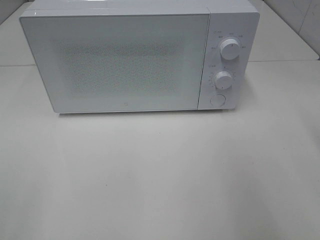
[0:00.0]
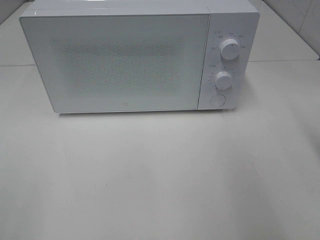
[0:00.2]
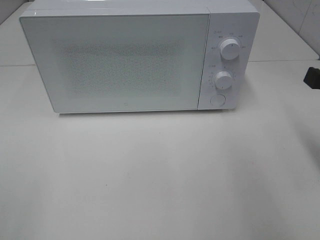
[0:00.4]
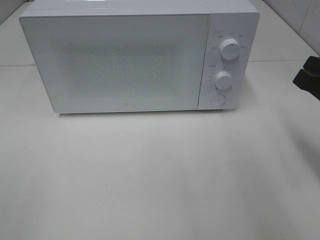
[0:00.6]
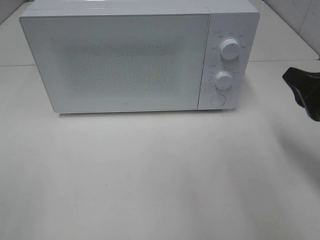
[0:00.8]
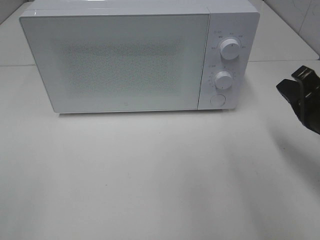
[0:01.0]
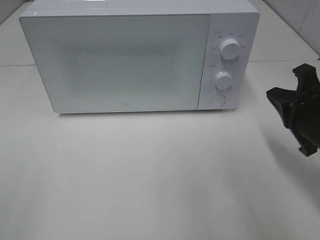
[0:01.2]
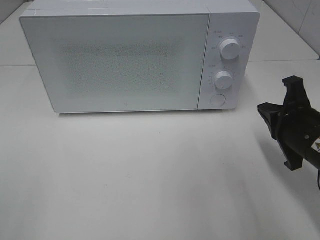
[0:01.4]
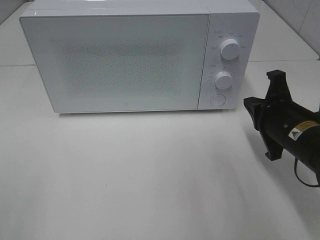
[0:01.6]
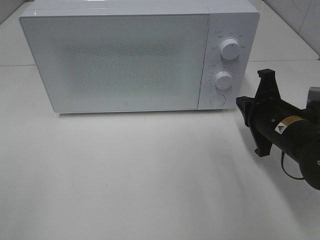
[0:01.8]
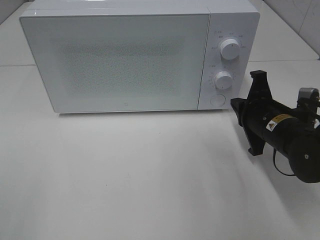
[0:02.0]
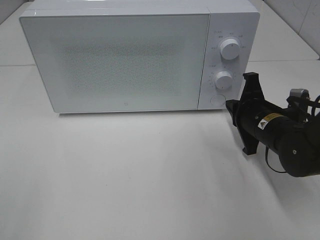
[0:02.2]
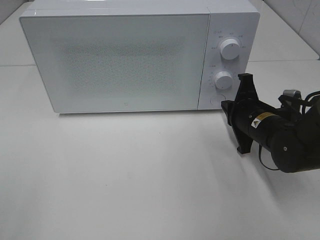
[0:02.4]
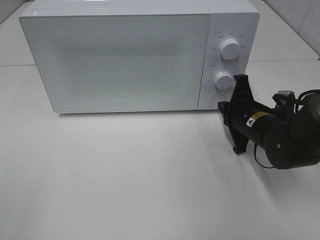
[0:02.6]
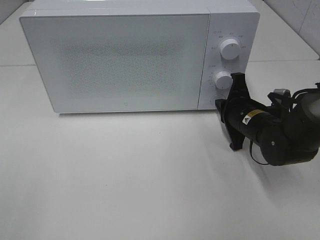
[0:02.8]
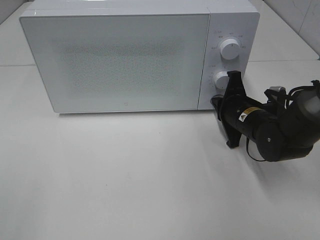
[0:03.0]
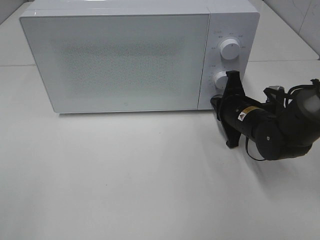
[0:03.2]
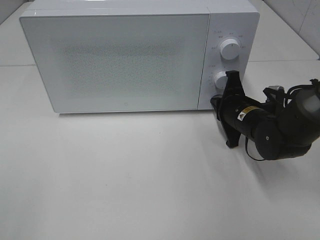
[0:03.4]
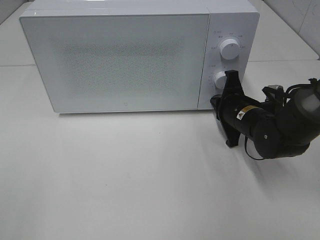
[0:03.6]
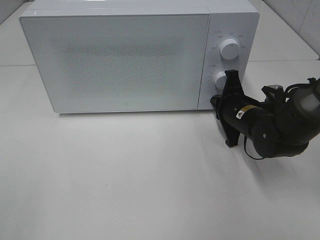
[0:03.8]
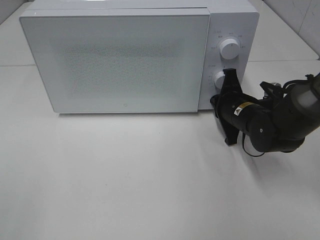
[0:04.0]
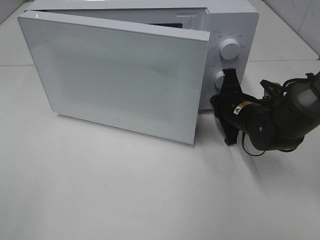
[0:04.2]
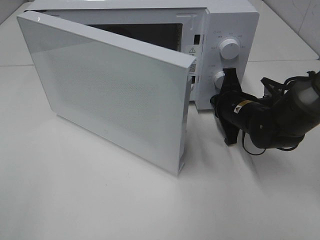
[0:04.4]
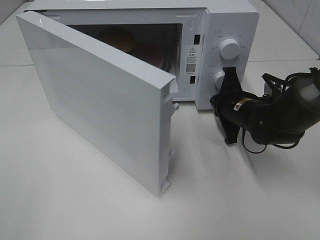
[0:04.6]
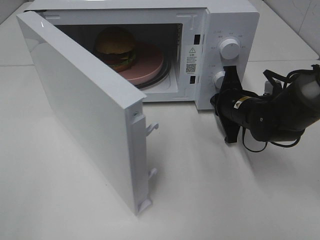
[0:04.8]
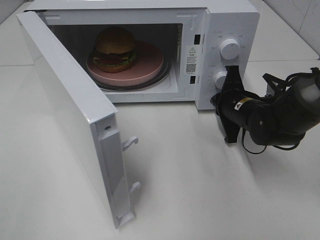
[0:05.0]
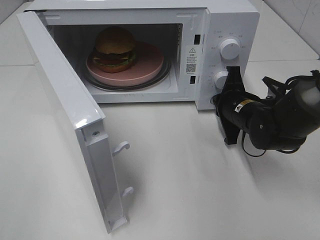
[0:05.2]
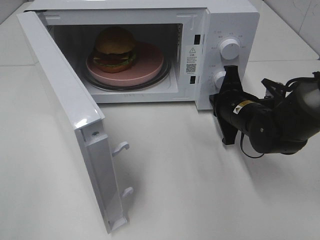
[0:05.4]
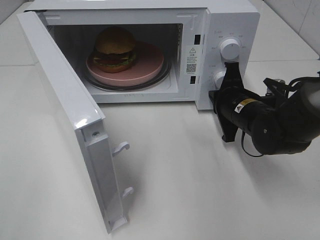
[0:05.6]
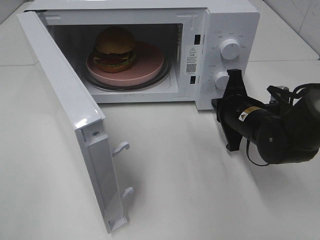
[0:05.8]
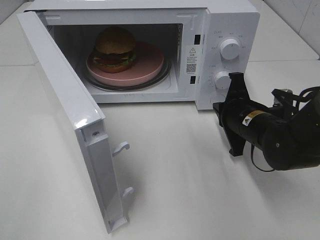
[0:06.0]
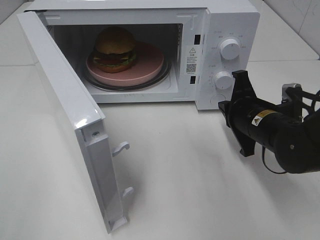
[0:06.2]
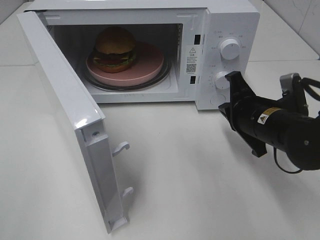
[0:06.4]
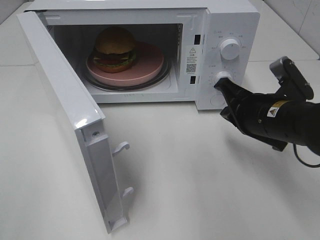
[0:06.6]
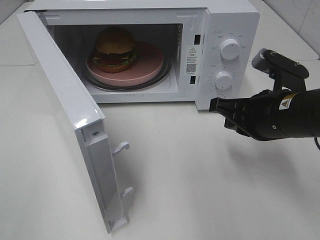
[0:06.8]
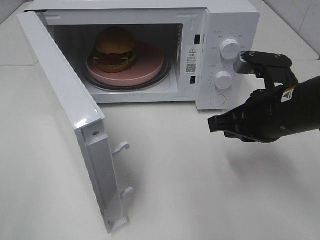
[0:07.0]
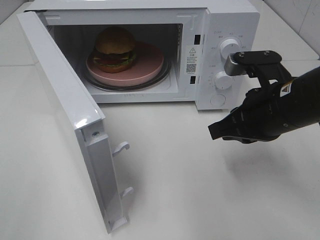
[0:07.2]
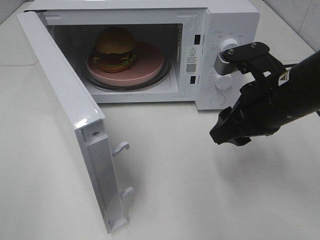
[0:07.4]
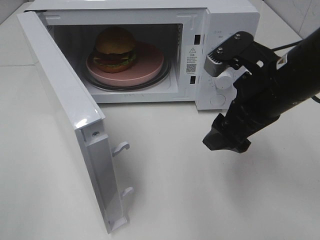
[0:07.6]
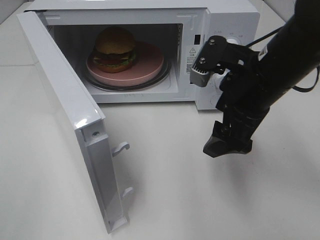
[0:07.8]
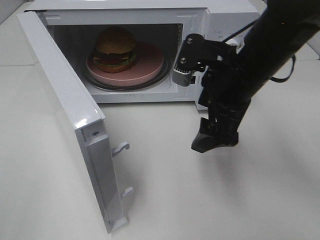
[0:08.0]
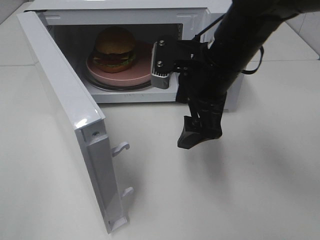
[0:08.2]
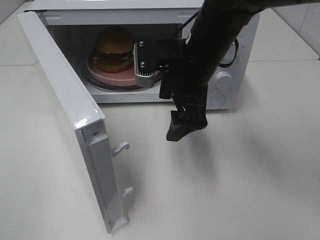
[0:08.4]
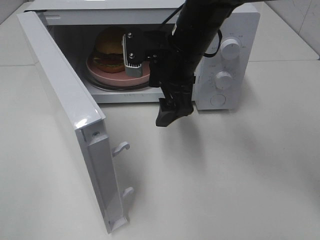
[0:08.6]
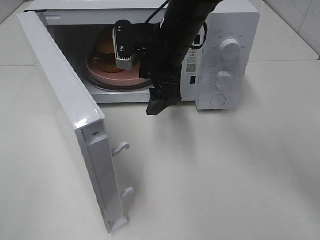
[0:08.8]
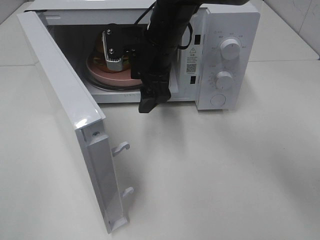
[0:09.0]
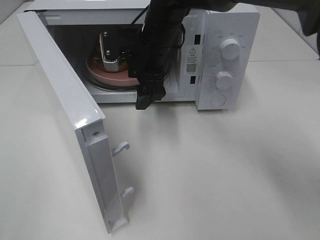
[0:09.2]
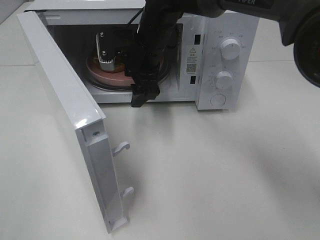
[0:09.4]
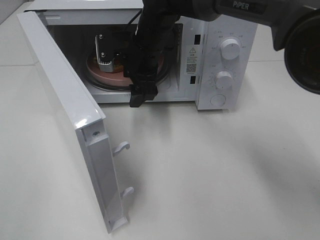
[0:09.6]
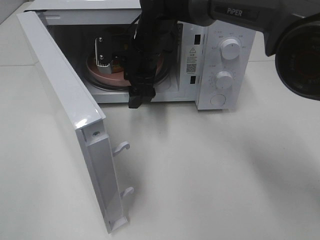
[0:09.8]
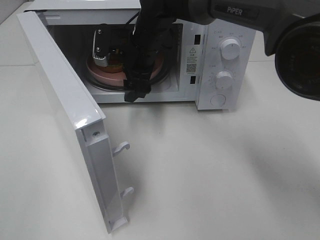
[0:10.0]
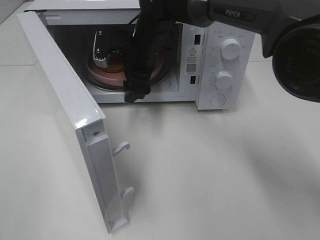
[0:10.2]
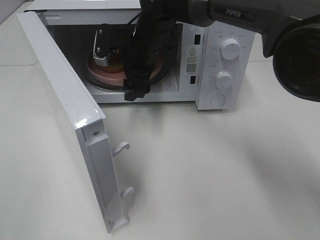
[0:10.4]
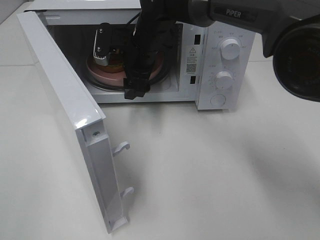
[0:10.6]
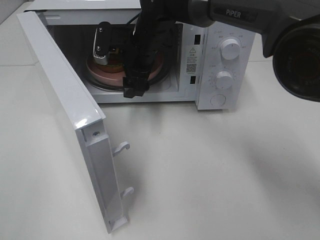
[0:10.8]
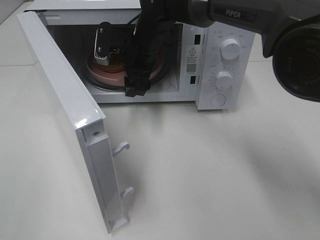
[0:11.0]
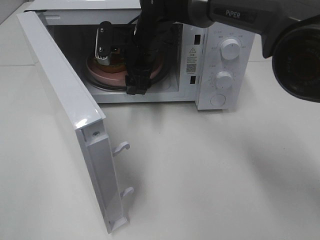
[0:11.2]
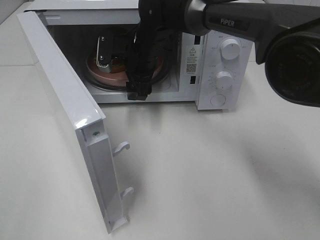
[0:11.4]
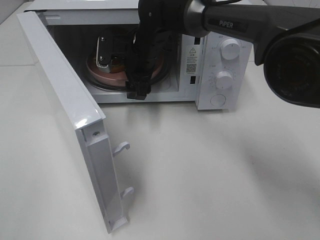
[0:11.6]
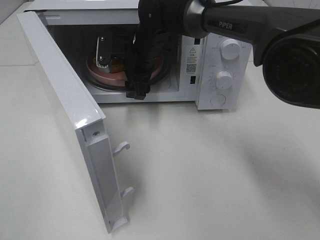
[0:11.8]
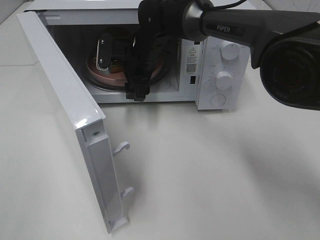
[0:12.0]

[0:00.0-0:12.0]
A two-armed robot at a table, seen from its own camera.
Task of the whole recording: Heat the burger.
Step, 0:00.0 to 0:05.4: Right hand: press the switch.
0:00.0 to 0:01.6: The right gripper heads downward, forward and to the left, covering about 20 cm.
0:01.6 to 0:03.0: The right gripper is displaced forward and downward by some 10 cm.
0:03.0 to 0:04.4: The grippers stay close to where they were, moving slightly.
0:04.4 to 0:06.0: The right gripper moves backward, some 5 cm.
0:06.0 to 0:07.6: The right gripper moves upward, roughly 15 cm, and opens its fingers.
0:07.6 to 0:09.0: The right gripper travels to the left and forward by roughly 20 cm.
0:09.0 to 0:10.4: The right gripper shifts by some 5 cm.
0:10.4 to 0:12.0: The grippers move only a little.

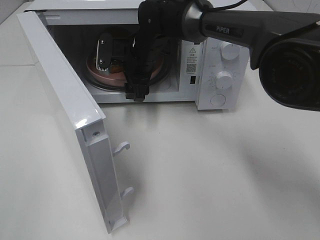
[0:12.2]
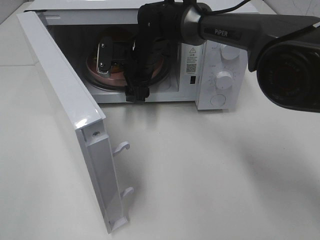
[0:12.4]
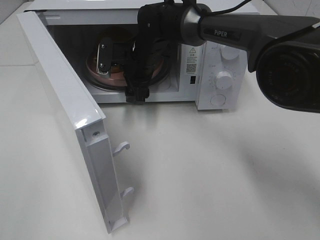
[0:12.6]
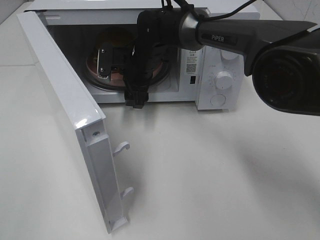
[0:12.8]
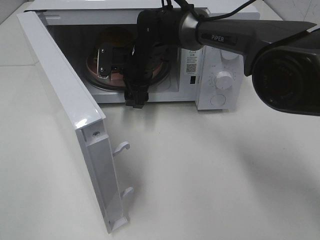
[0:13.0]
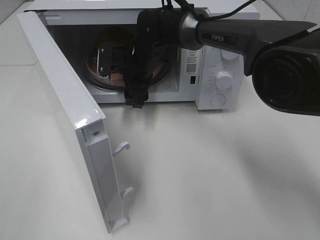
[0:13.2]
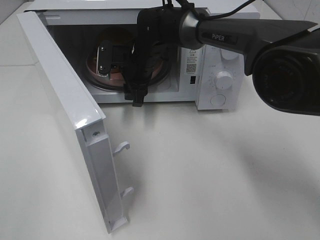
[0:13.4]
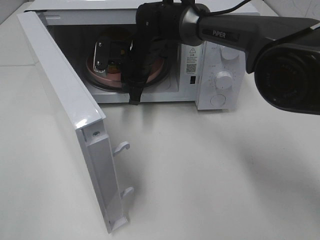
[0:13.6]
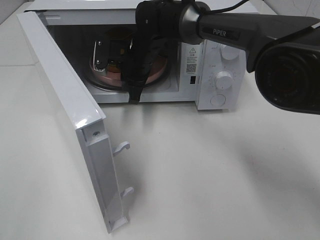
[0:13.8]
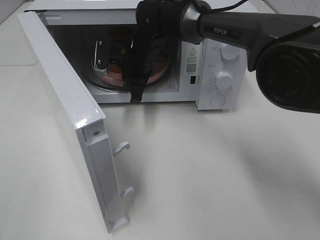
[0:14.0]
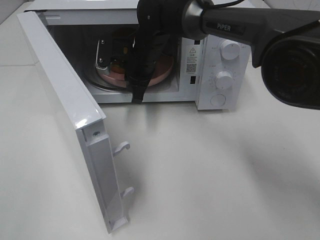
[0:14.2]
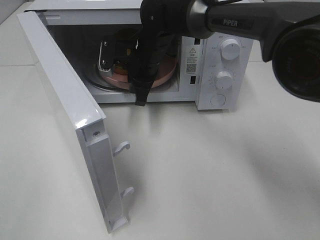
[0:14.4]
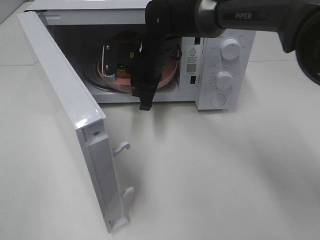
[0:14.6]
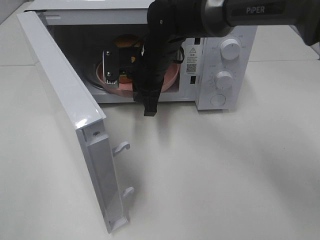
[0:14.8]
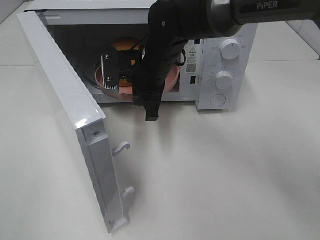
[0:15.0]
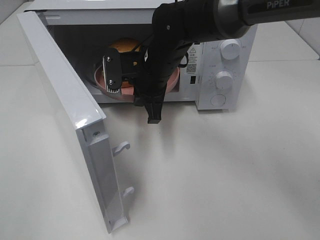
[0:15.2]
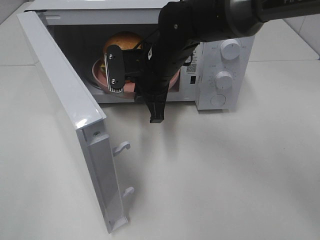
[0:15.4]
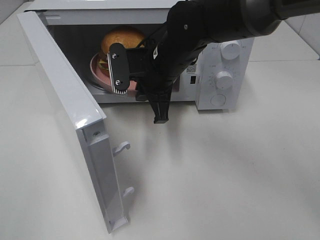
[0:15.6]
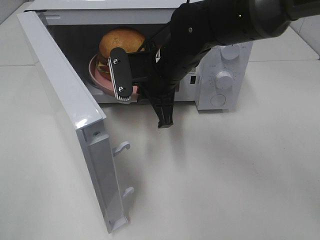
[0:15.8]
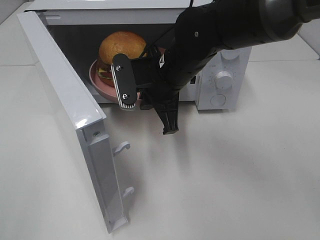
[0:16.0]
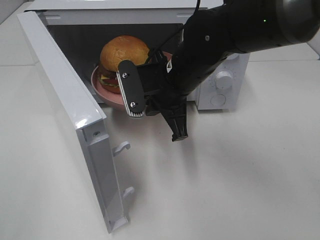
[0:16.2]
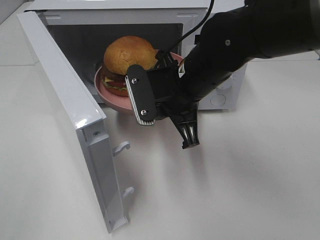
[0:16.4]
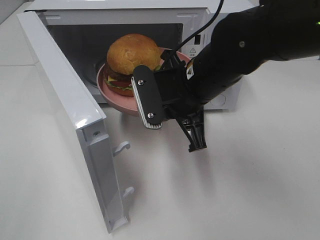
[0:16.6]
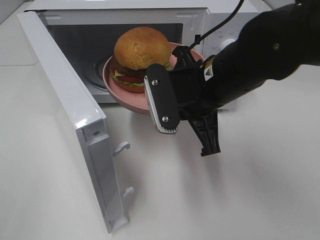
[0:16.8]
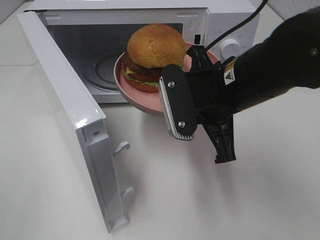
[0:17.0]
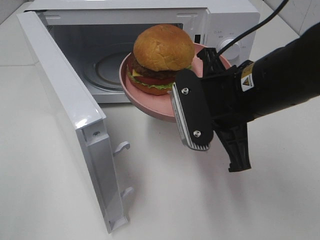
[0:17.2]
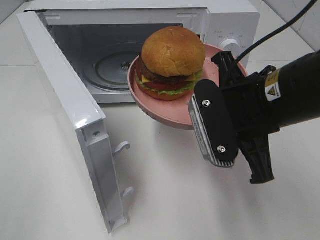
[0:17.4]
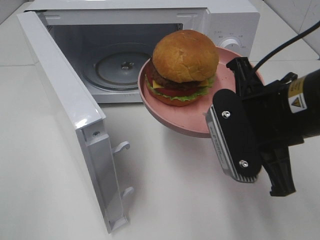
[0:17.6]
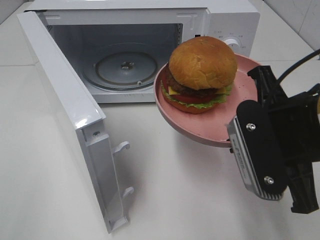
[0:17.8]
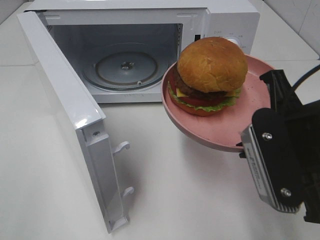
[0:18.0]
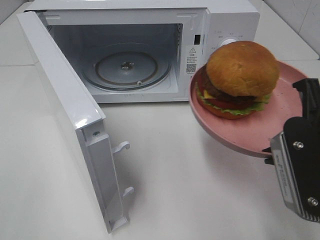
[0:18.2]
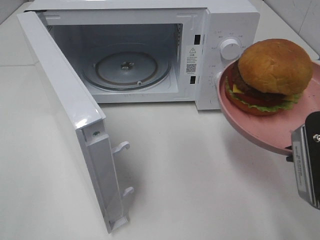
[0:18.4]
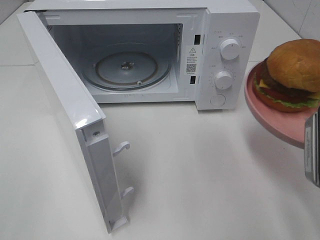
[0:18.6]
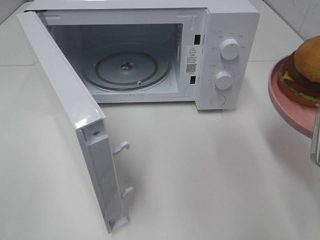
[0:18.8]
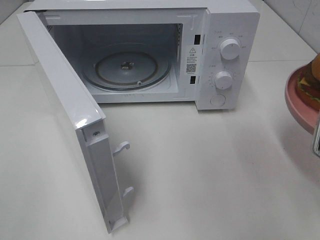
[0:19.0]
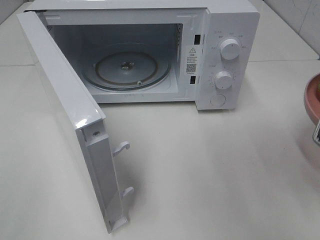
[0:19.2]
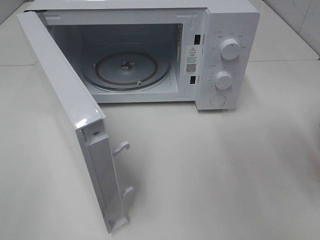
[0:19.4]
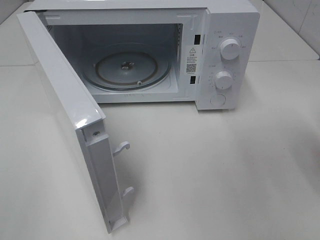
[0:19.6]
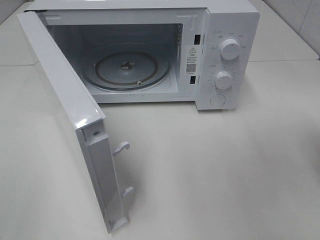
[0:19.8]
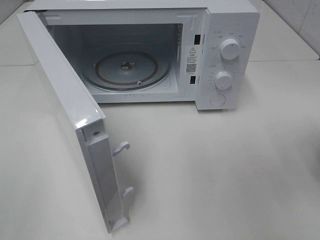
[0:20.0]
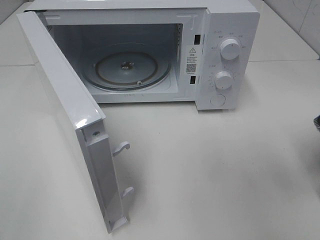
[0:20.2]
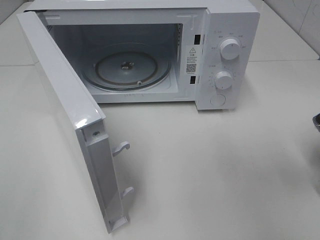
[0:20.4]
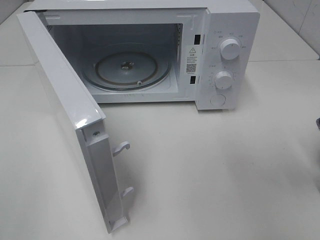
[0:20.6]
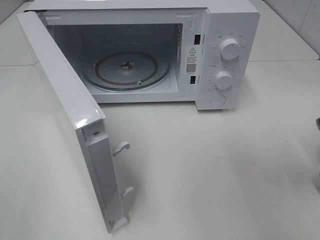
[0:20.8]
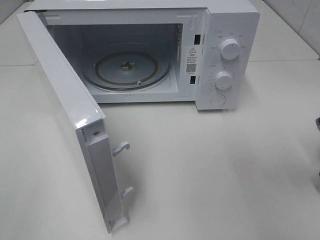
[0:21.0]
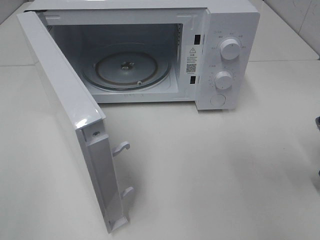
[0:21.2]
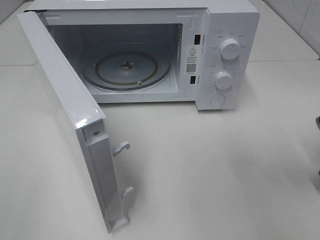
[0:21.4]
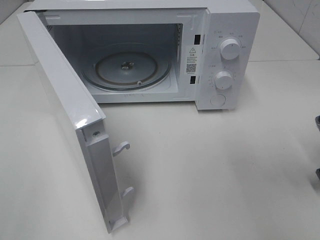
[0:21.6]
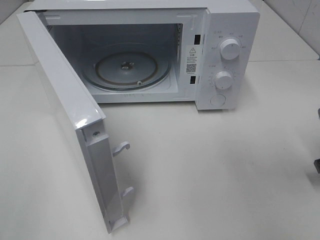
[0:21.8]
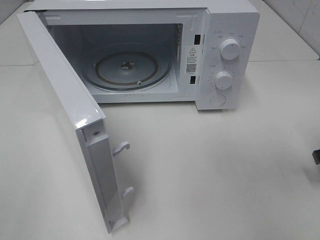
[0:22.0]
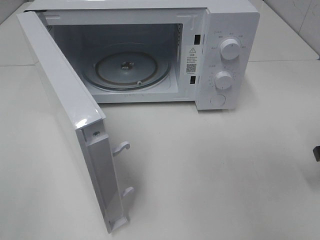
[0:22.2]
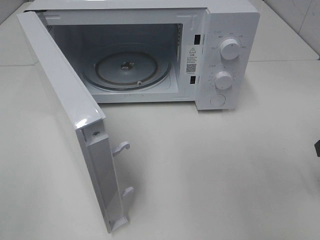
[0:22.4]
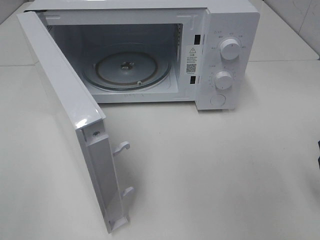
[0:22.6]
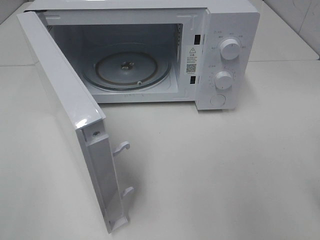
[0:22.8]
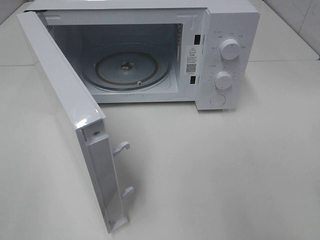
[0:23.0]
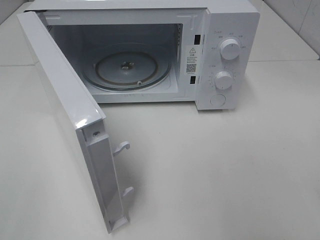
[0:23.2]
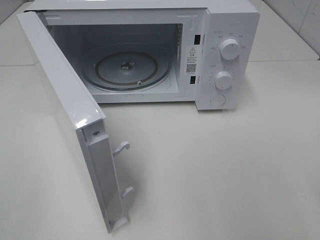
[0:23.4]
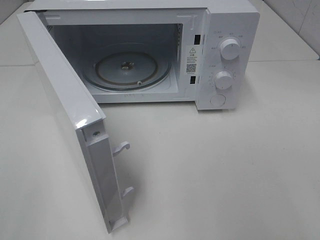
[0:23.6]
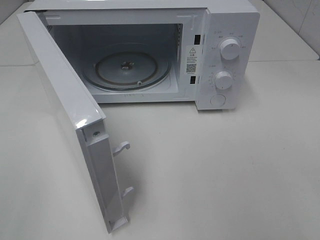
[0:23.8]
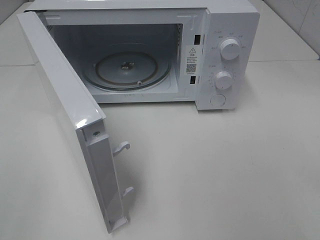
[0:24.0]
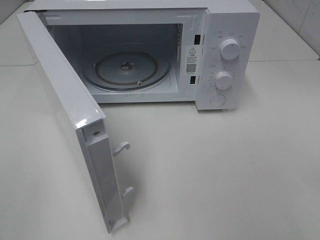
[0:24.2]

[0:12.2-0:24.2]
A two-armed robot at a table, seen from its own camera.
Task of the whole recording: Heat the burger.
Step, 0:14.0 to 0:21.2: Right hand: place the plate on the table.
0:12.2 to 0:13.8: The right gripper closes its fingers.
0:13.8 to 0:15.2: The right gripper goes about 10 cm backward.
0:15.2 to 0:16.6: The right gripper travels backward and to the right by approximately 10 cm.
0:16.6 to 0:18.2: The right gripper goes approximately 20 cm backward and to the right.
0:18.2 to 0:19.8: The right gripper is displaced to the right and forward by roughly 15 cm.
